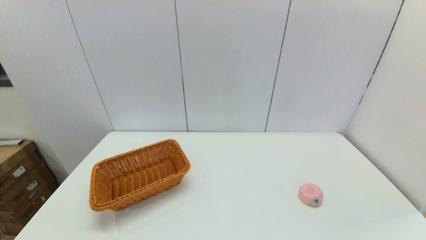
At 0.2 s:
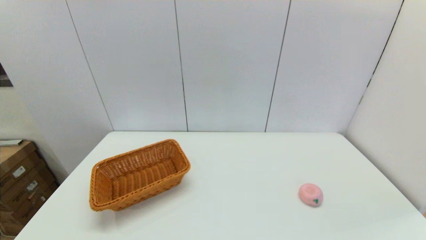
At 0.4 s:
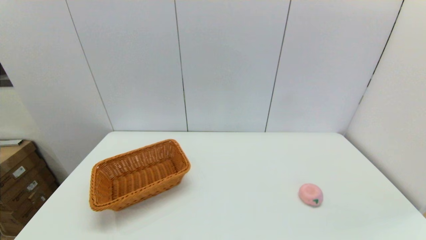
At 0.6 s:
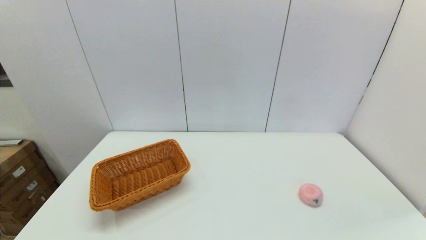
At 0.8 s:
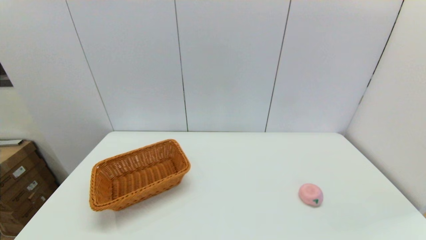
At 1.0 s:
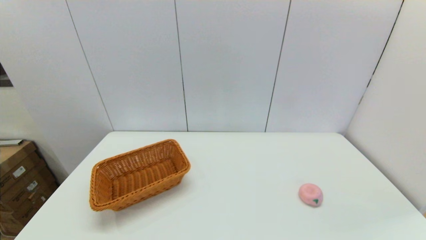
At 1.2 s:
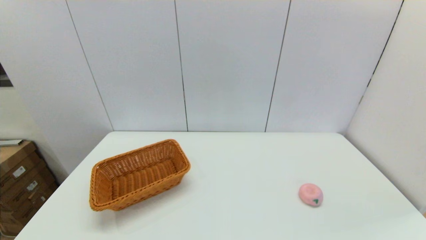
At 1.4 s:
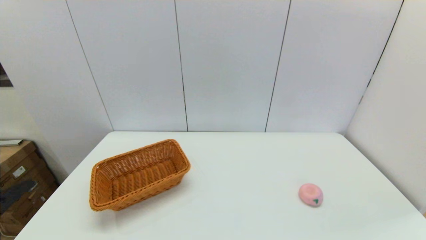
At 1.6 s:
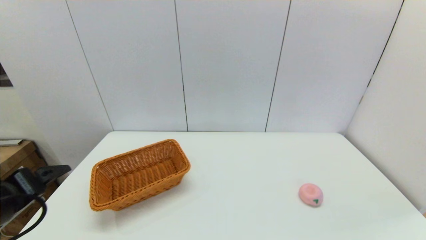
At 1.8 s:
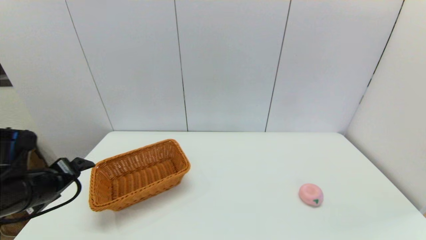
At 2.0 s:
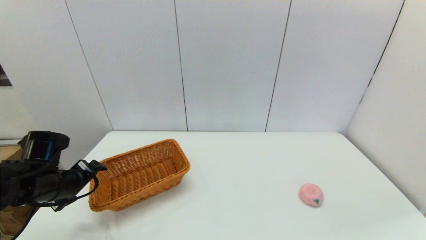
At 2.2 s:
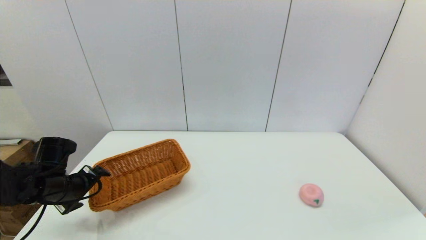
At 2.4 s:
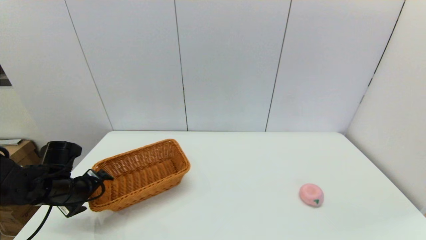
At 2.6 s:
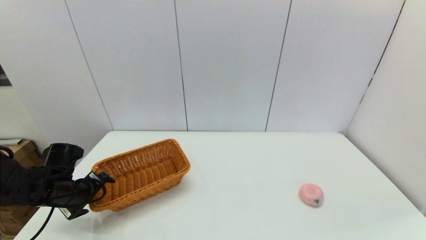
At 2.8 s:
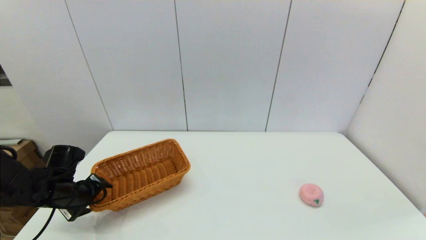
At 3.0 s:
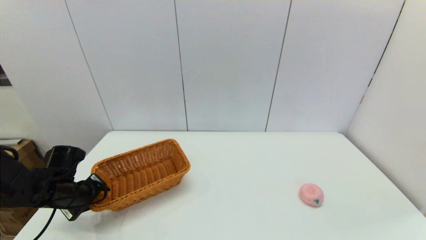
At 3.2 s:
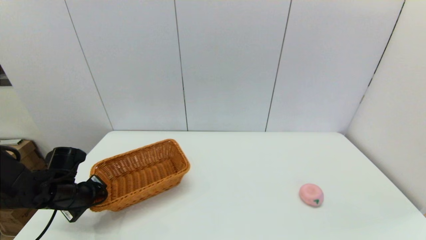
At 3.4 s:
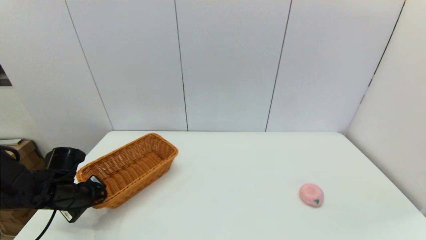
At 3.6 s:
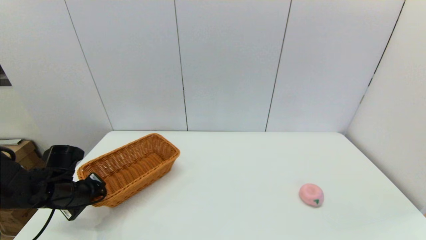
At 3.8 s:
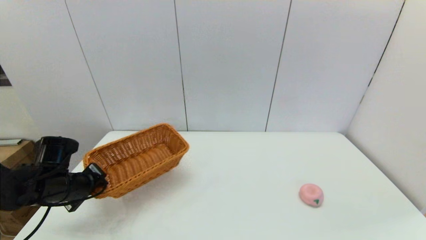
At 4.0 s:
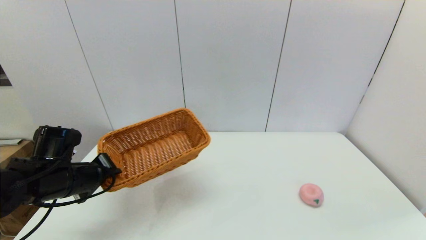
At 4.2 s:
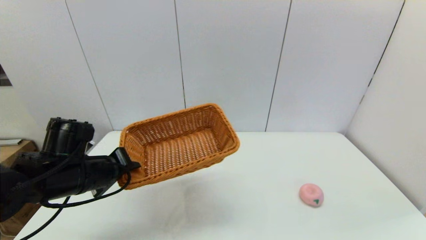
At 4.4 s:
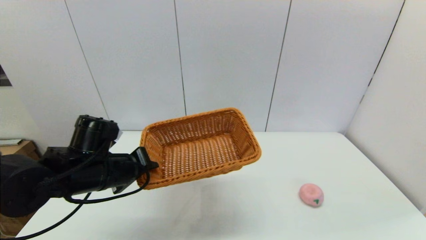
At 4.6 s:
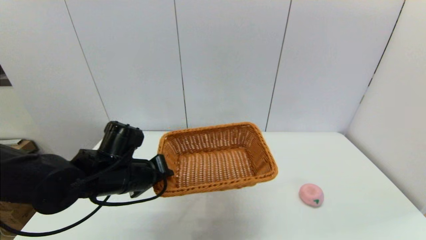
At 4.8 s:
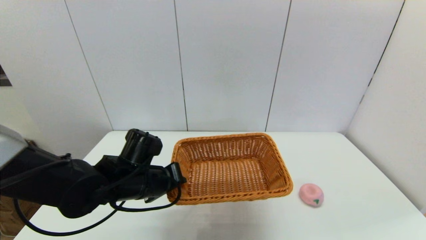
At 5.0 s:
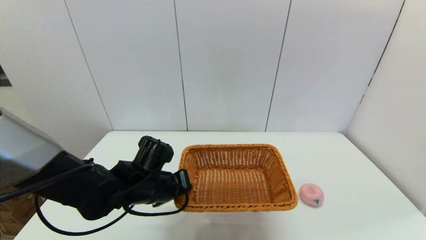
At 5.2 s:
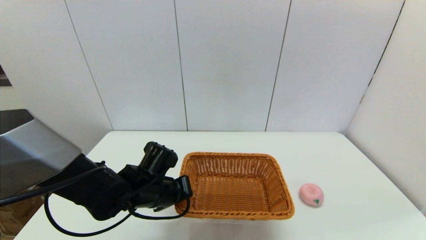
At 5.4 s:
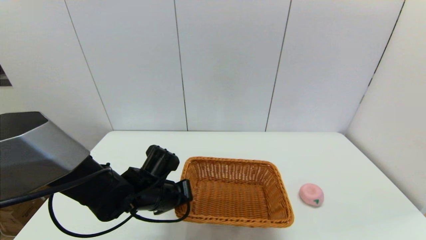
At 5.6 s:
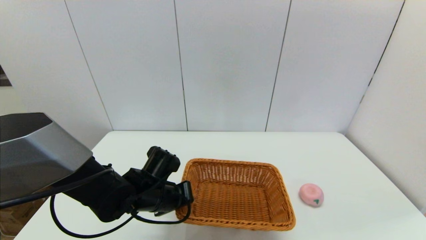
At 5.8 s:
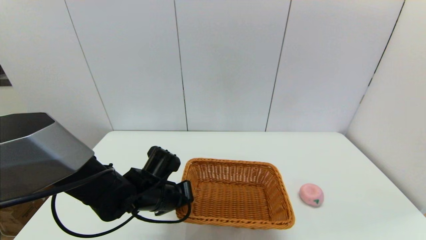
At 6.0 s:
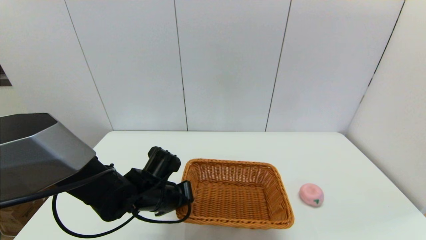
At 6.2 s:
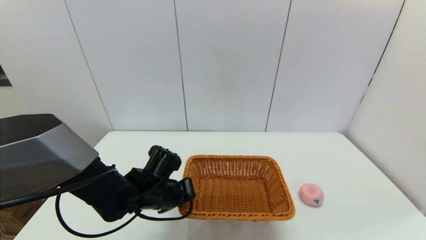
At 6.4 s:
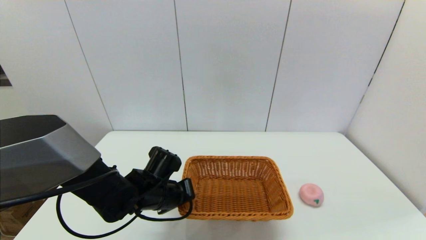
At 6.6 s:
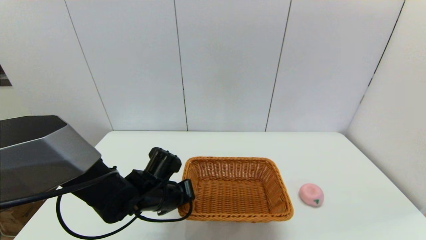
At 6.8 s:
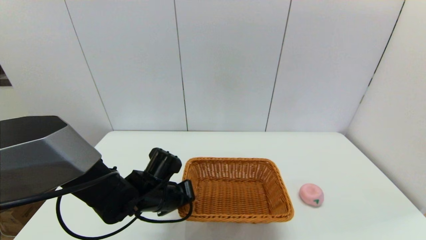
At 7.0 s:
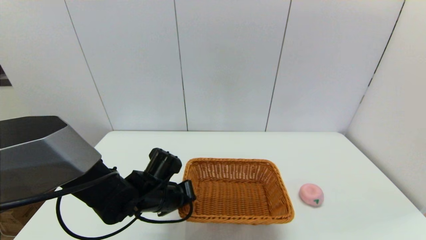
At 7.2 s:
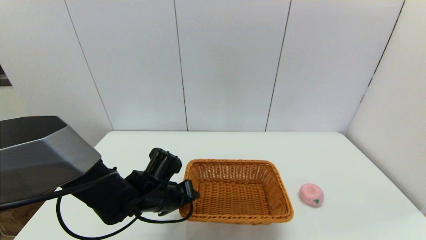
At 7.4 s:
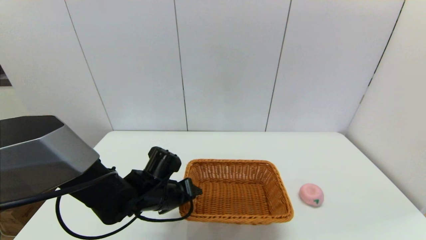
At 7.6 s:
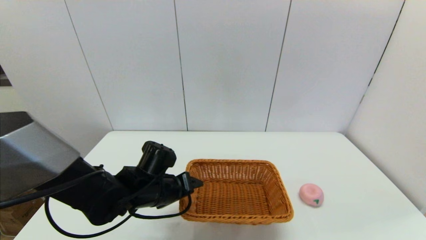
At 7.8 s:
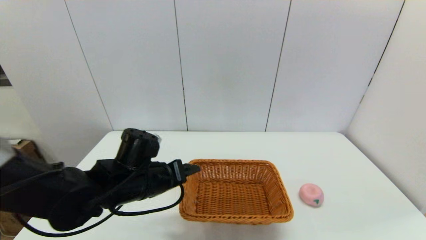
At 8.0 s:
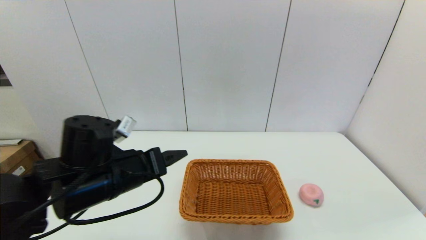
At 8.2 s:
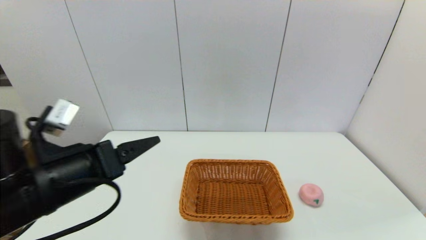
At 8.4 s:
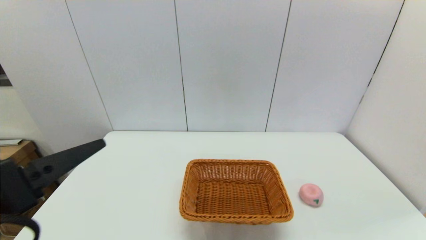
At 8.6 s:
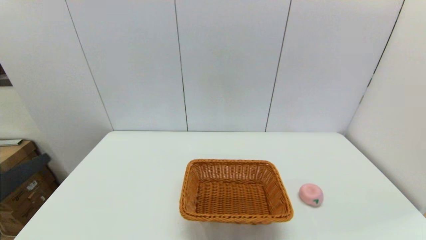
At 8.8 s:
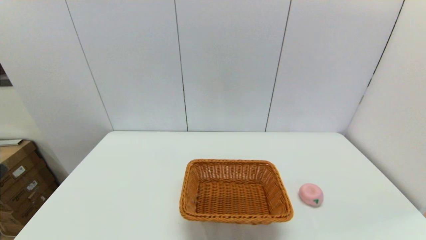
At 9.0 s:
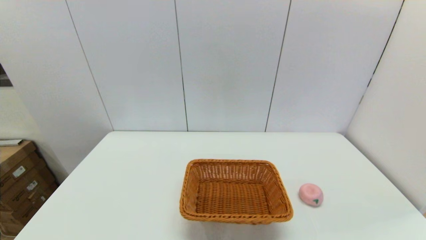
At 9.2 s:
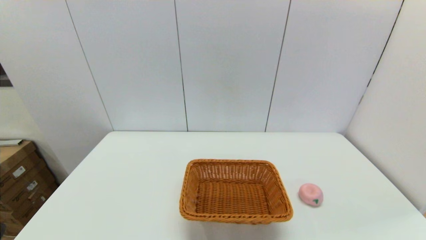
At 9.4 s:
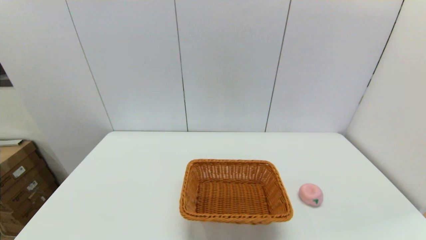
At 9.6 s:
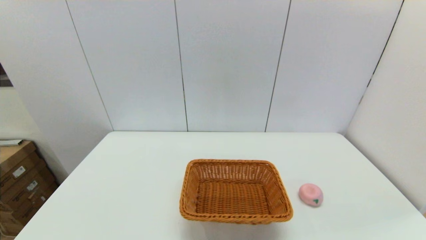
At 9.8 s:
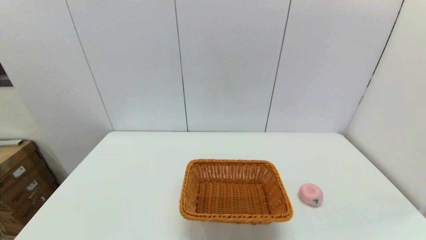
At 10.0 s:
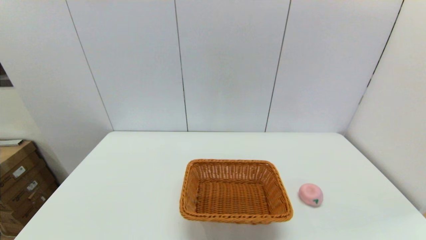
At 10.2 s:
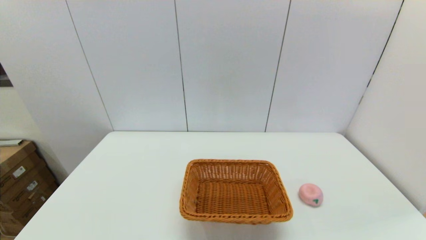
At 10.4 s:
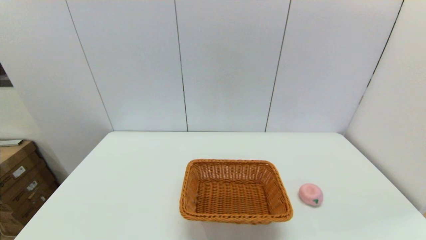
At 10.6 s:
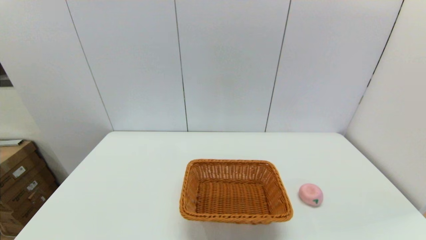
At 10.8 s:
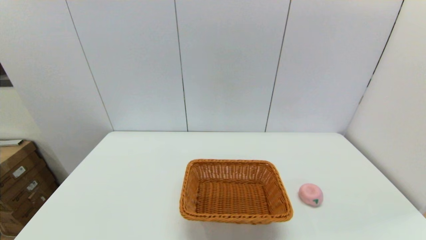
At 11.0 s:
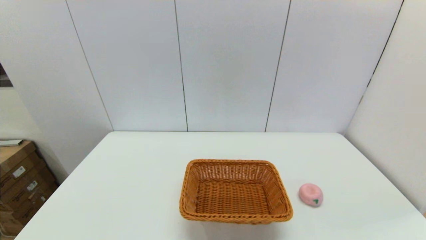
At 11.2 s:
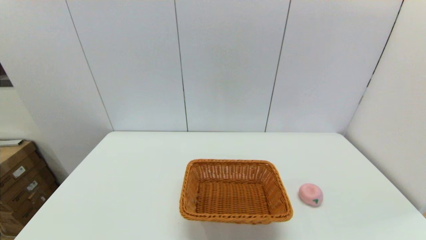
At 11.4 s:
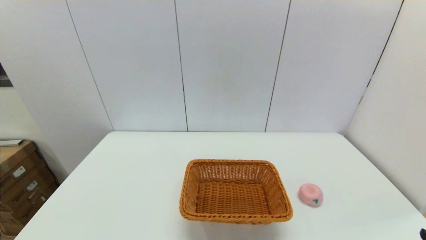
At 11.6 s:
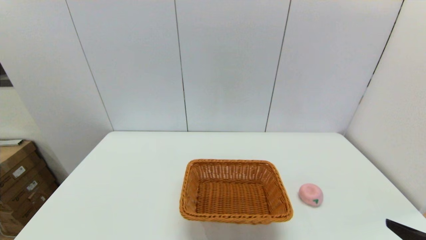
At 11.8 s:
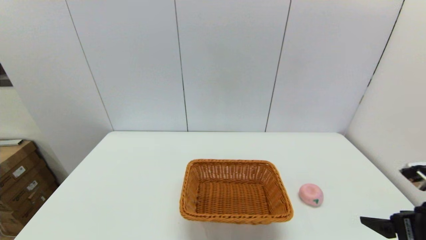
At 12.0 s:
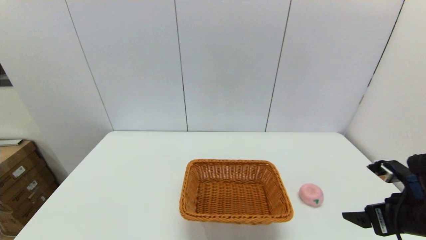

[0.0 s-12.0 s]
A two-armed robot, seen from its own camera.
Step, 0.0 to 3.4 s: Grasp the light basket with the left gripper.
Step, 3.6 to 7.4 s: Place the light basket on the middle of the table with the left gripper.
0.0 to 1.6 s: The left gripper travels forward and upward by about 20 cm.
1.6 to 3.0 s: The left gripper goes roughly 20 cm downward and forward, and closes its fingers.
3.0 to 4.4 s: The left gripper is displaced to the right and upward by roughly 15 cm, and closes.
4.4 to 6.0 s: The left gripper shifts roughly 10 cm downward and to the right.
6.0 to 7.6 s: The left gripper opens up.
7.6 to 9.0 s: The left gripper goes roughly 35 cm backward, to the left and upward.
10.4 to 12.0 s: The right gripper shifts some 20 cm forward.

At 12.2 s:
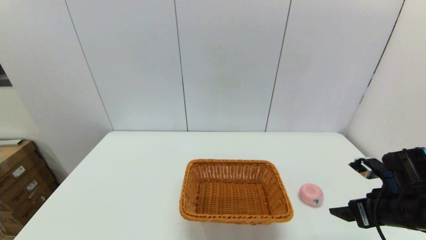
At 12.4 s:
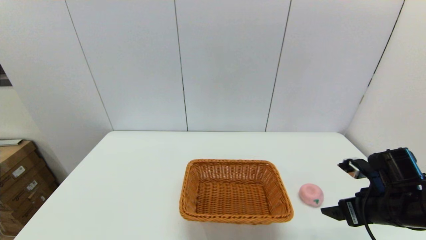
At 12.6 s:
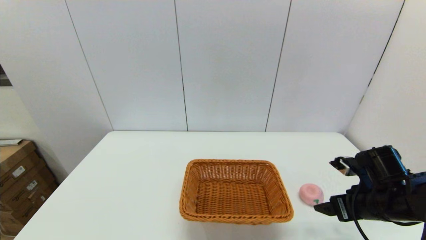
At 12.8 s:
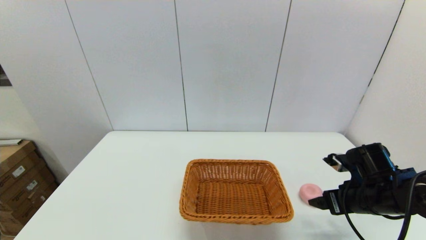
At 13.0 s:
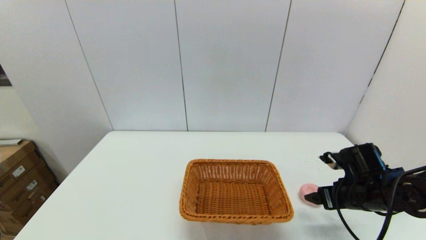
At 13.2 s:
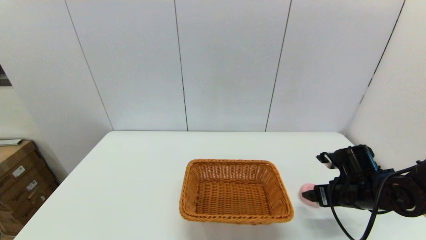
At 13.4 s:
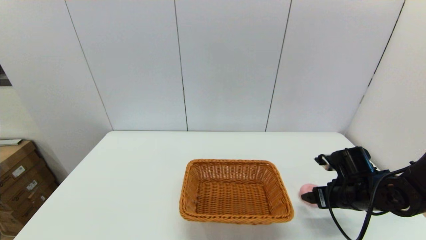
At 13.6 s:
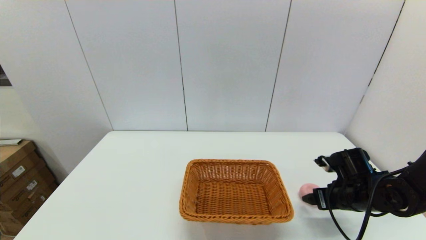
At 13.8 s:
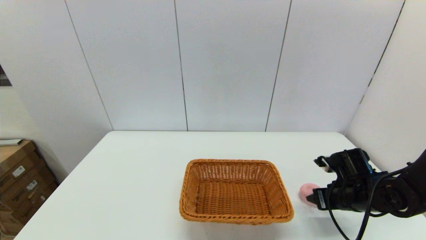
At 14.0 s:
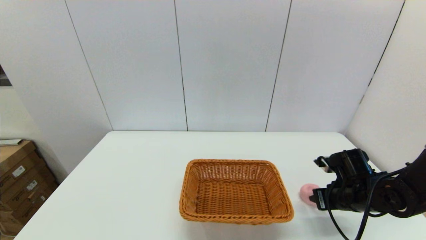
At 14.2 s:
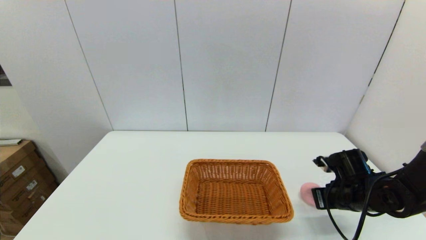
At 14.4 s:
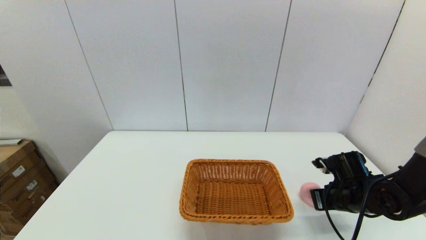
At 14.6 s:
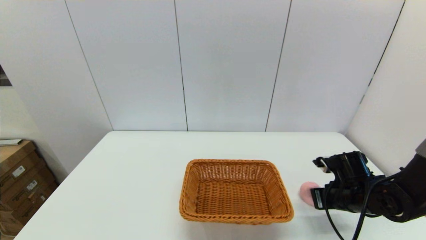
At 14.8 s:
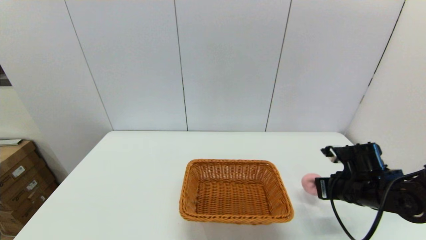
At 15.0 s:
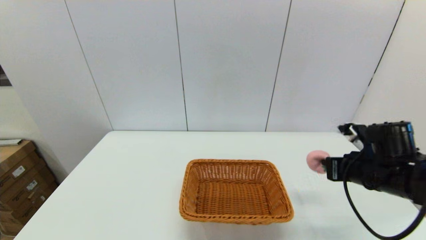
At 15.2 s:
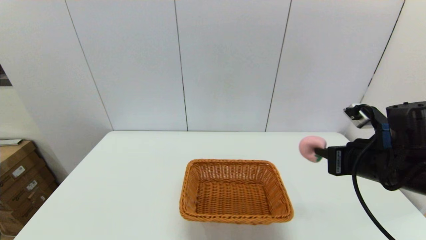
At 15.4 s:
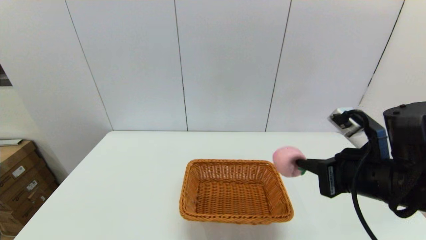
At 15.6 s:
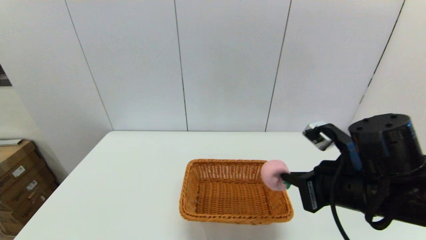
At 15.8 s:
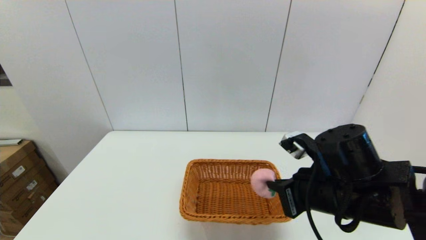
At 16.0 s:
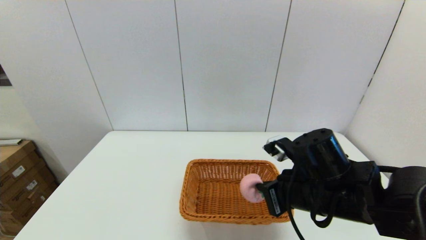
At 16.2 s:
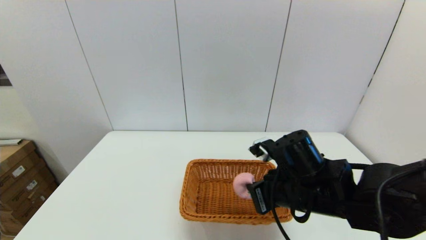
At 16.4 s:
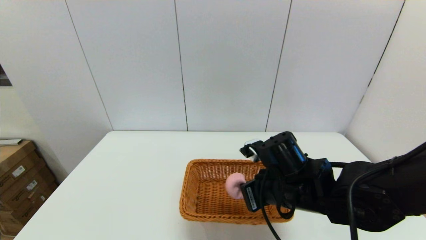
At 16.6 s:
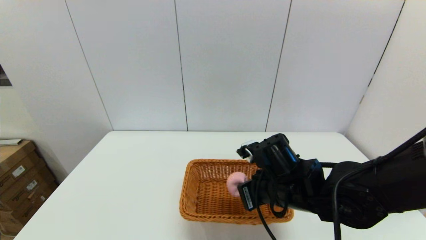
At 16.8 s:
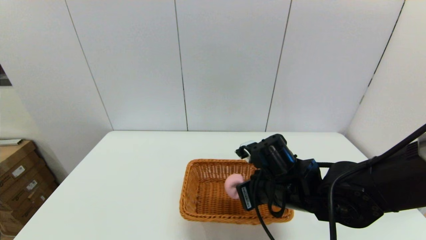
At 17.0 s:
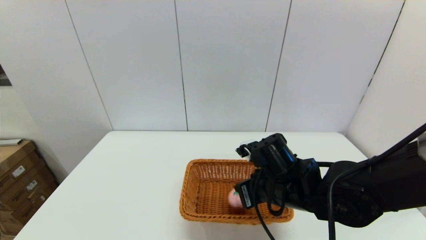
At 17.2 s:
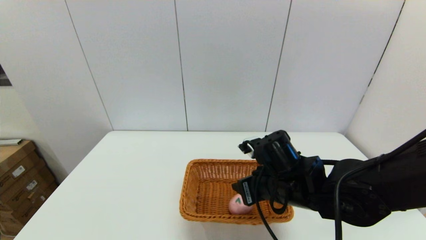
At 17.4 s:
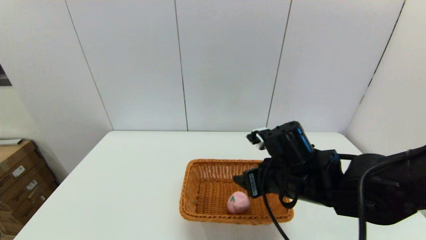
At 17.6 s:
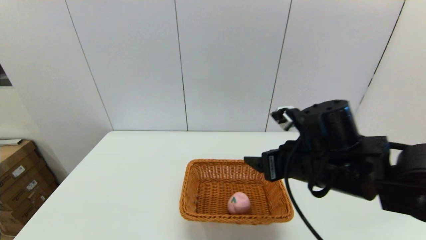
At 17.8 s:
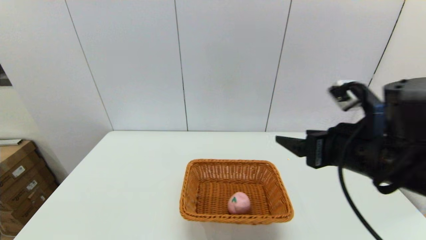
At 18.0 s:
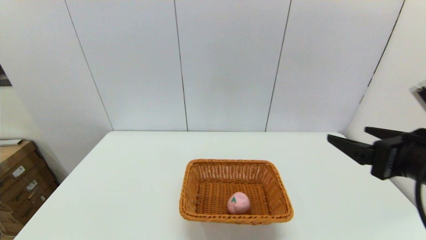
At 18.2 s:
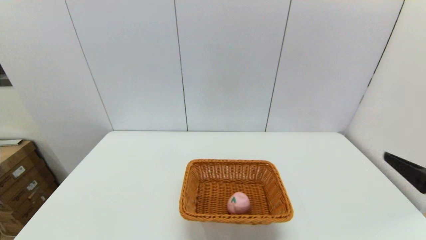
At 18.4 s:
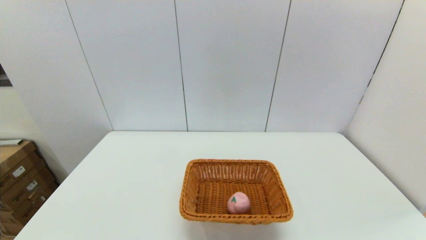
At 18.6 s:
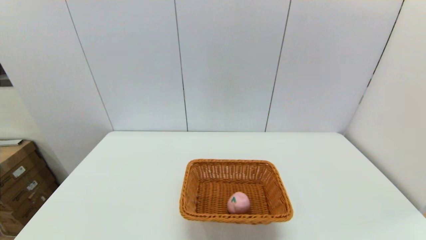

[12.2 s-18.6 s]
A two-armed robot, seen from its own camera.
Step, 12.2 to 14.4 s: Grasp the peach with the right gripper.
Step, 14.6 to 17.2 s: Place the peach into the light basket with the right gripper.
12.2 to 13.8 s: The right gripper is displaced forward and downward by some 10 cm, and closes up.
13.8 to 15.4 s: The right gripper is displaced upward, backward and to the left by some 20 cm, and closes.
15.4 to 17.0 s: The right gripper heads to the left, downward and forward, covering approximately 15 cm, and opens.
17.0 to 18.6 s: The right gripper goes roughly 35 cm backward and to the right, and opens its fingers.
